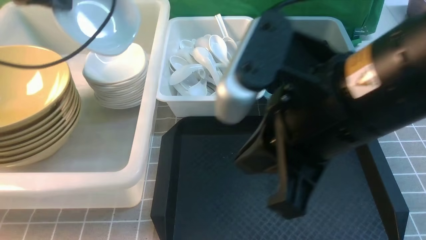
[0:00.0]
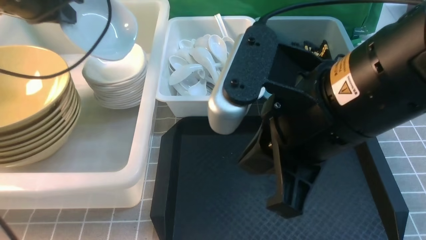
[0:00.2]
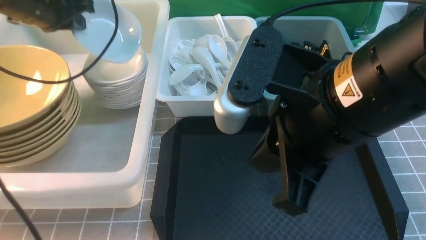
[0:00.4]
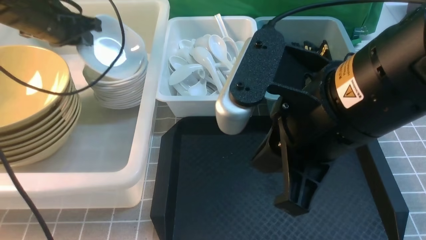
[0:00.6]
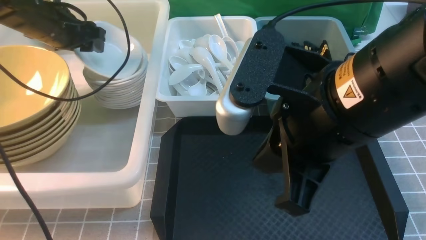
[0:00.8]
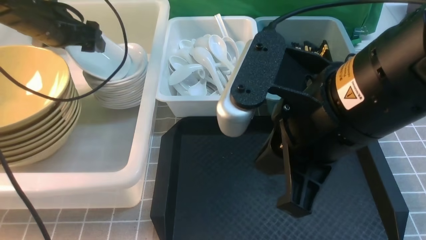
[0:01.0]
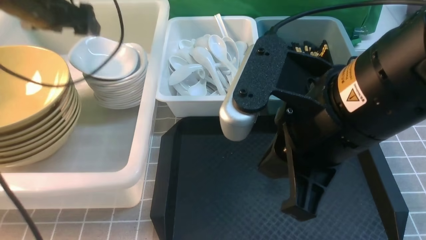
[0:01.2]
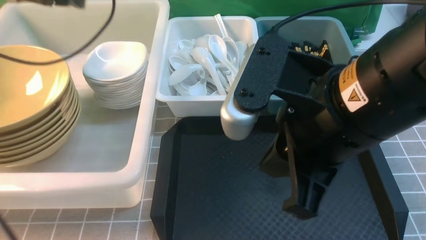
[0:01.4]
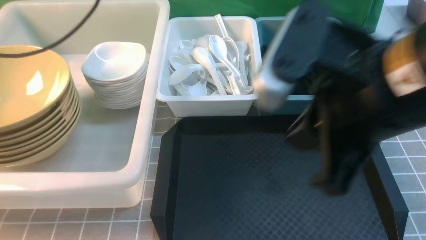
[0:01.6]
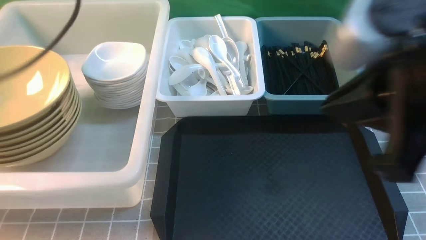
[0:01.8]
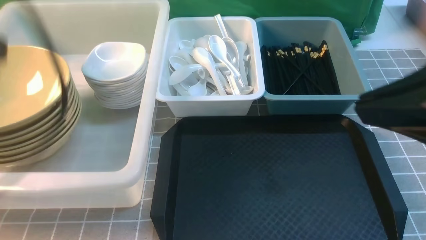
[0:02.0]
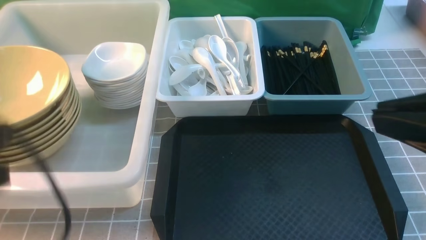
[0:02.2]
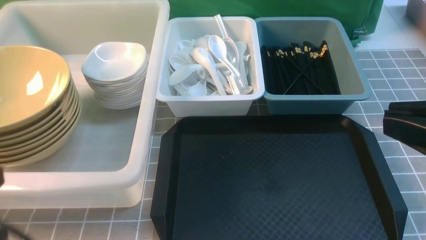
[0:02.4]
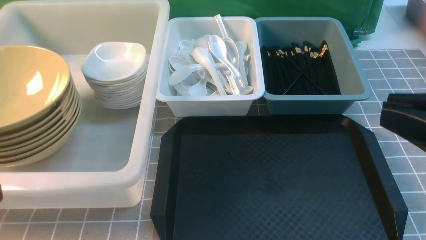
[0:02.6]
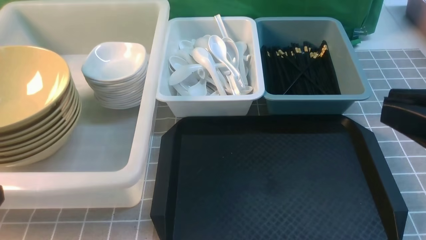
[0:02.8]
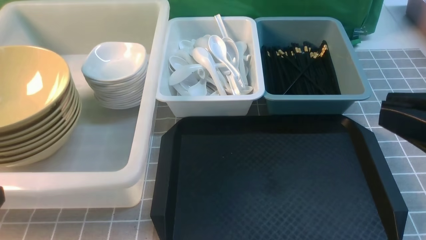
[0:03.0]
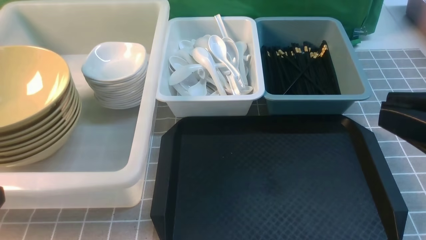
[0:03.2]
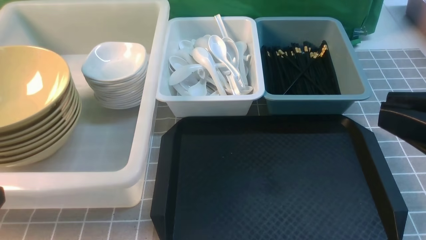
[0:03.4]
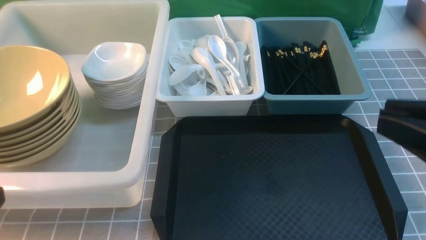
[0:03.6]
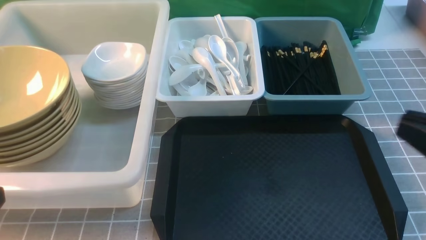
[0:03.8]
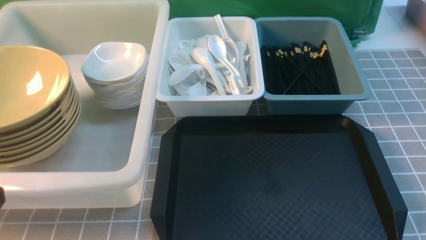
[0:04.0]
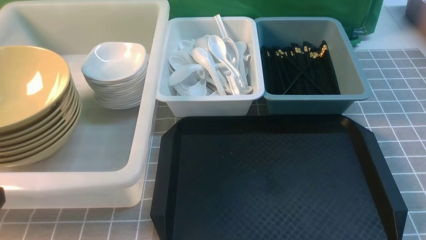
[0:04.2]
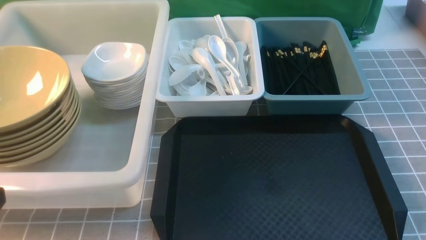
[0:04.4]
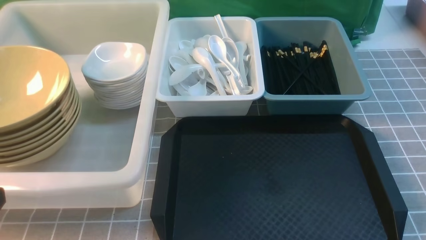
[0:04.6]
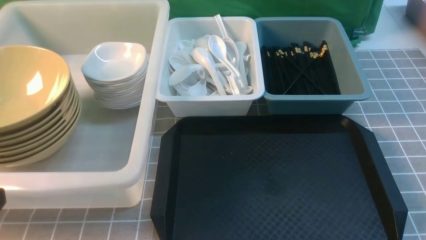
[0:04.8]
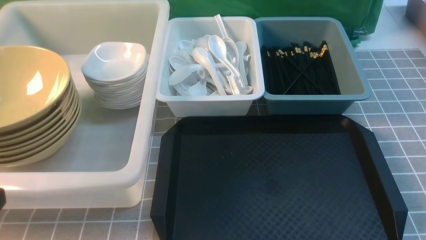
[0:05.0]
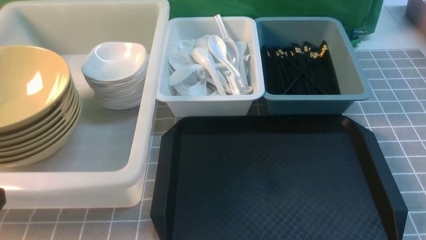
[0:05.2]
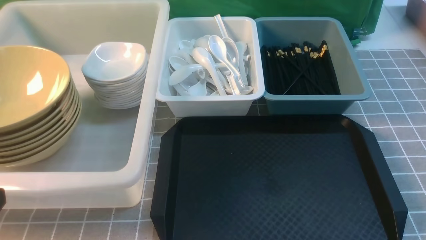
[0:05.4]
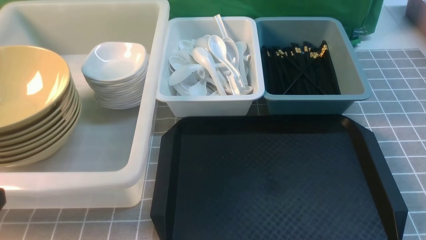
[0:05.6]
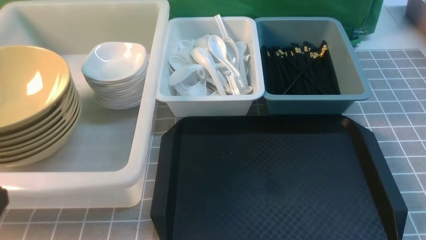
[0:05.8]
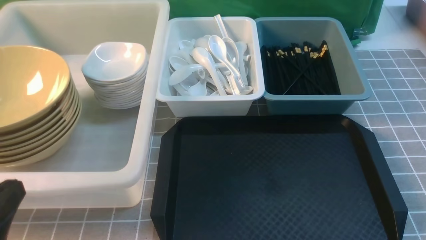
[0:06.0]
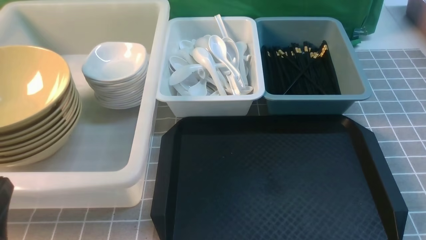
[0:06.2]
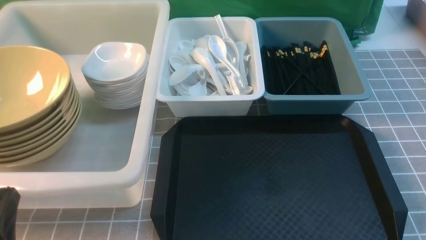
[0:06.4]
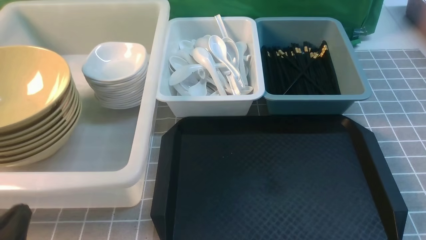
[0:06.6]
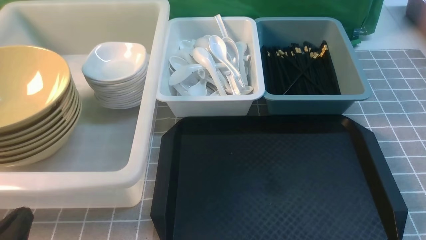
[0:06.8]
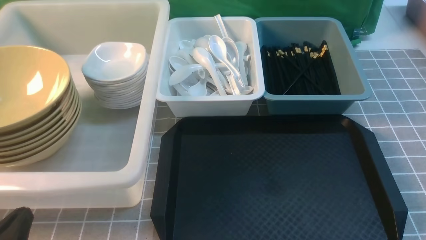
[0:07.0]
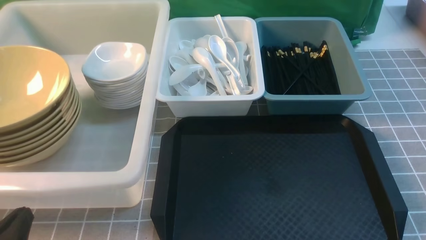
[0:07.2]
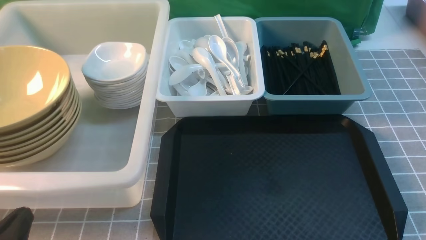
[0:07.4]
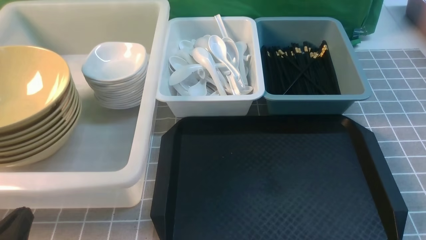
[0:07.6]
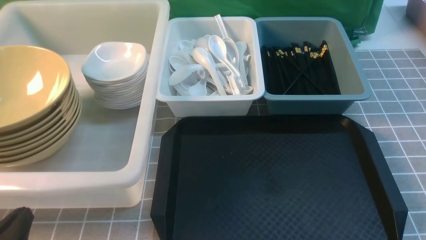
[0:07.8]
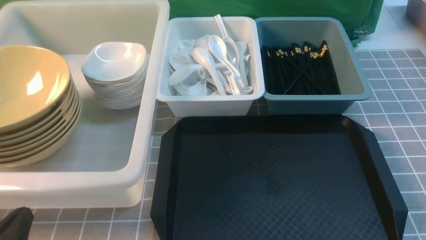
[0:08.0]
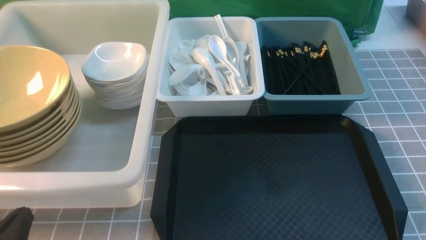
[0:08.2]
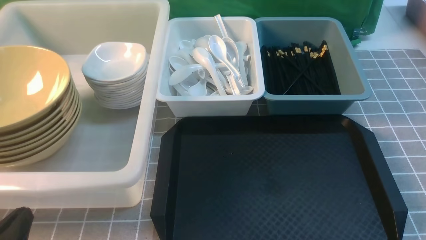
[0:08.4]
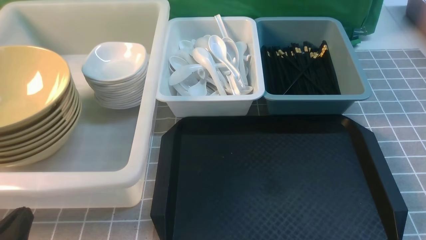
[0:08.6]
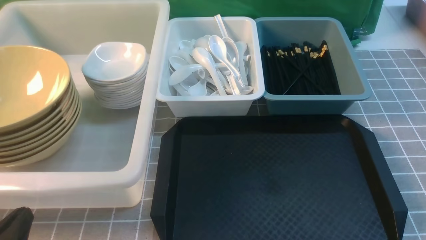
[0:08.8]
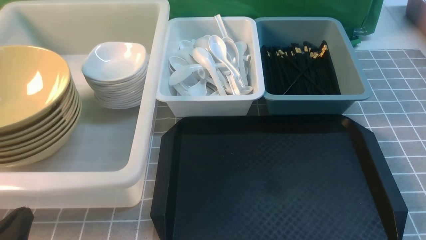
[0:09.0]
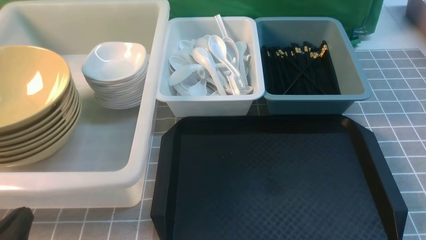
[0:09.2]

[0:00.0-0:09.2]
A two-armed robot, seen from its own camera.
Task of the whole recording: on grey table put chopsticks spoon bowls plates into blue grey white boxes.
Step, 0:00.0 to 0:01.2: use the left arm to put the plate into the large storage box on the left.
0:00.0 to 0:01.6: The left gripper goes approximately 5 cm backward, moves roughly 10 cm downward and comes back, and opens, then closes again.
0:01.6 to 0:03.0: The left gripper moves backward and downward, approximately 30 cm. The right gripper is displaced to the right and backward by some 10 cm.
0:03.0 to 0:04.6: The right gripper shifts roughly 25 cm downward and to the right.
0:06.2 to 0:07.6: The grippers make only small movements.
0:07.6 to 0:09.2: Neither gripper changes place.

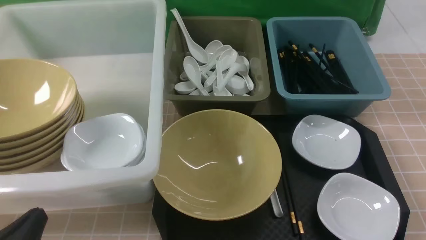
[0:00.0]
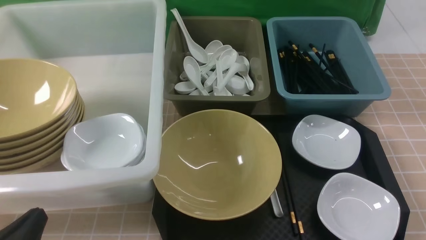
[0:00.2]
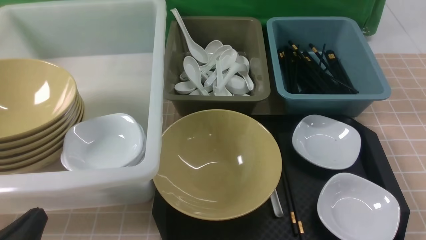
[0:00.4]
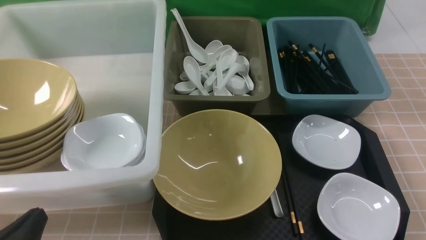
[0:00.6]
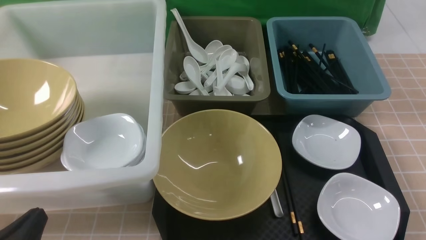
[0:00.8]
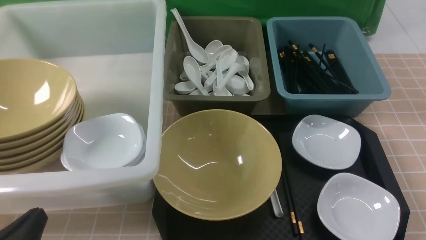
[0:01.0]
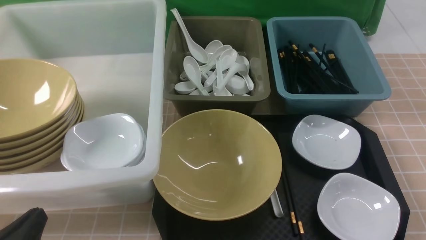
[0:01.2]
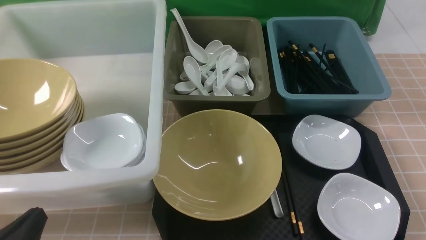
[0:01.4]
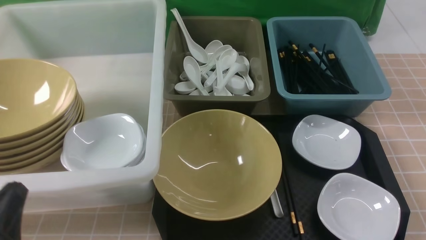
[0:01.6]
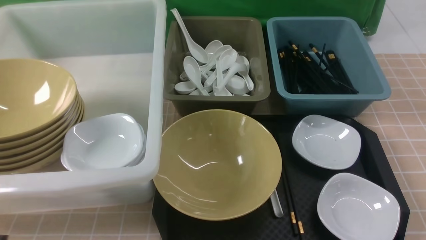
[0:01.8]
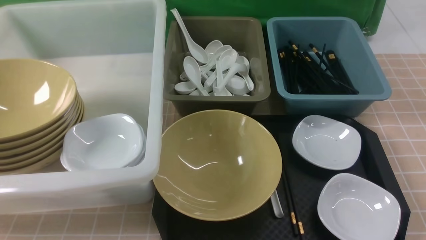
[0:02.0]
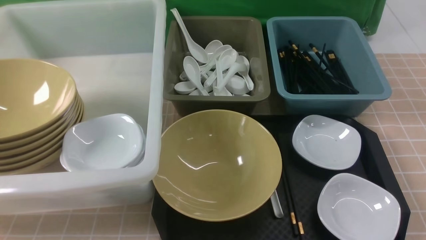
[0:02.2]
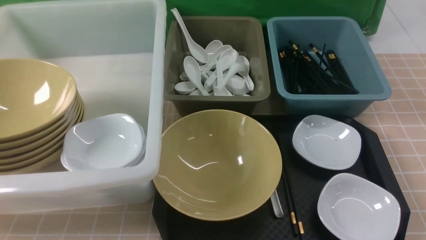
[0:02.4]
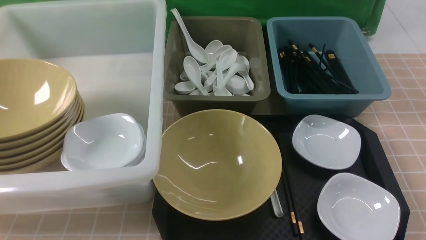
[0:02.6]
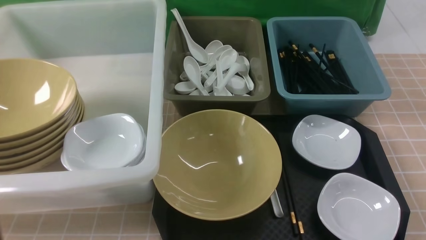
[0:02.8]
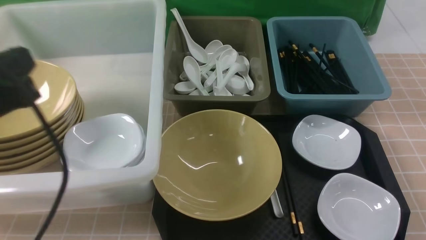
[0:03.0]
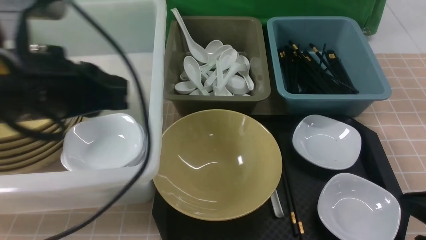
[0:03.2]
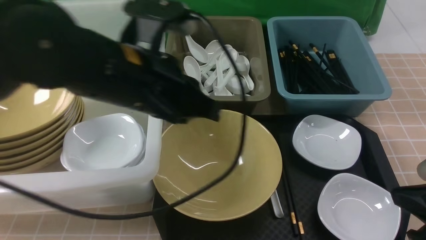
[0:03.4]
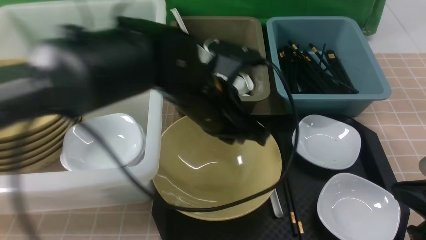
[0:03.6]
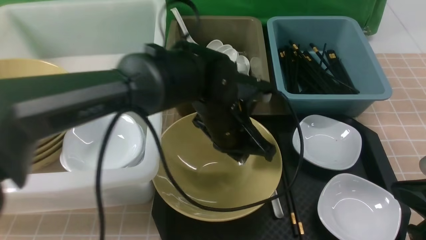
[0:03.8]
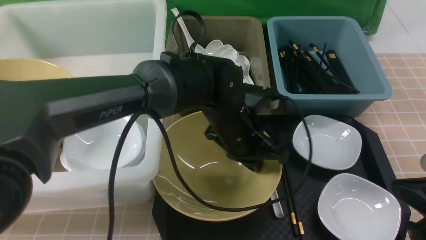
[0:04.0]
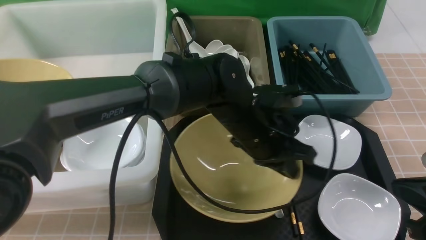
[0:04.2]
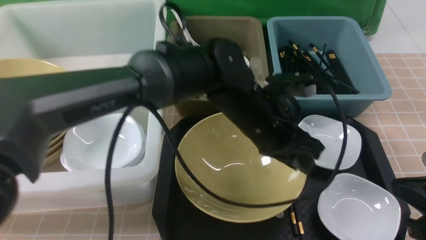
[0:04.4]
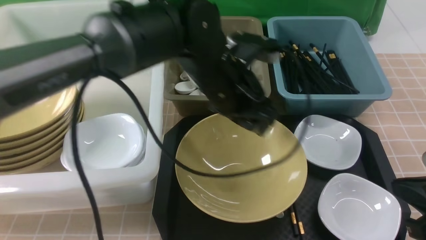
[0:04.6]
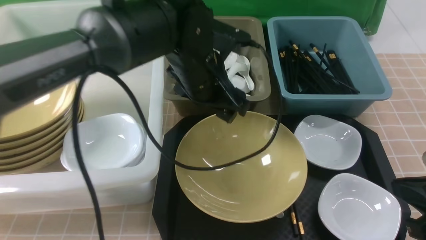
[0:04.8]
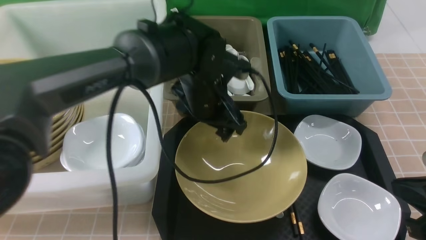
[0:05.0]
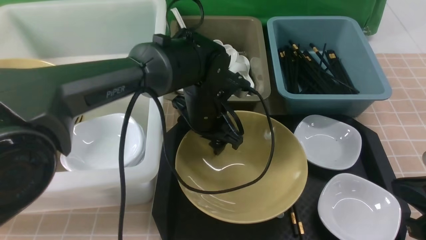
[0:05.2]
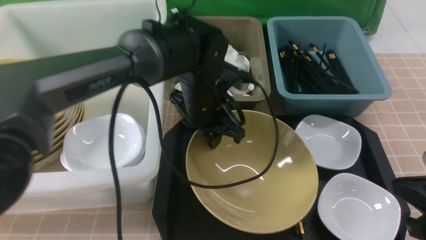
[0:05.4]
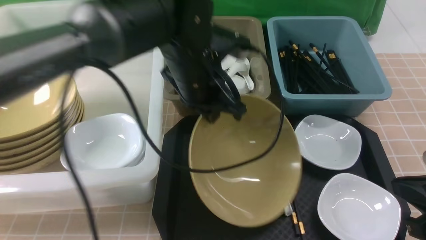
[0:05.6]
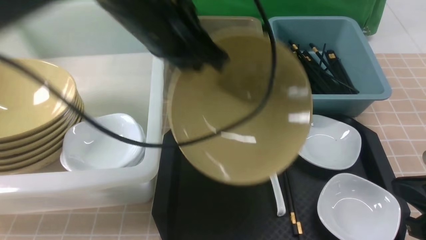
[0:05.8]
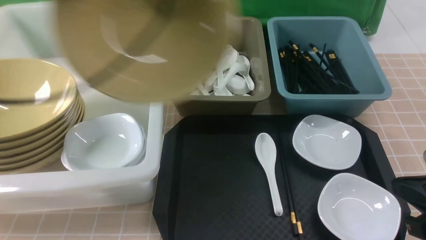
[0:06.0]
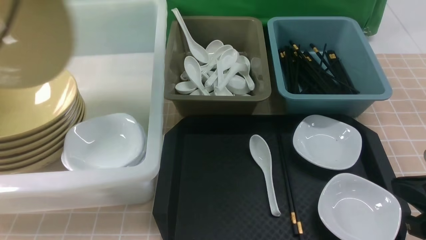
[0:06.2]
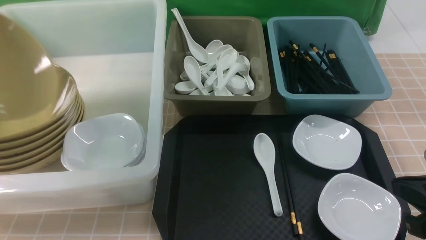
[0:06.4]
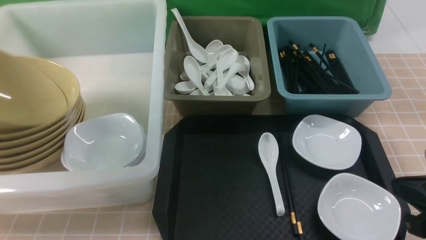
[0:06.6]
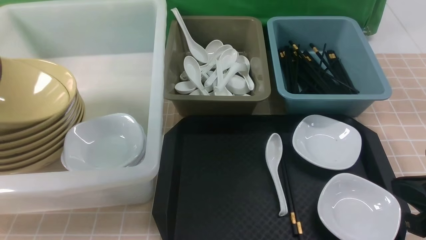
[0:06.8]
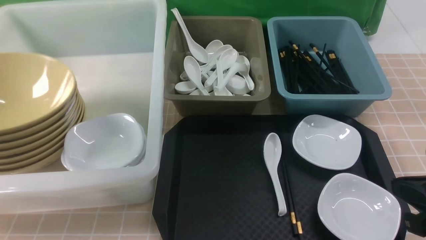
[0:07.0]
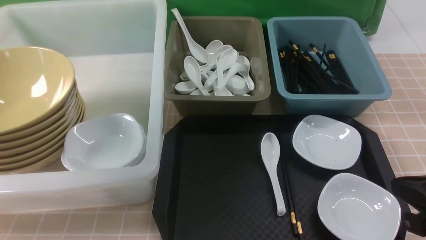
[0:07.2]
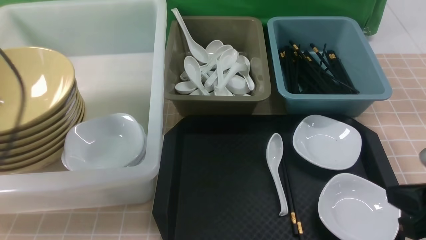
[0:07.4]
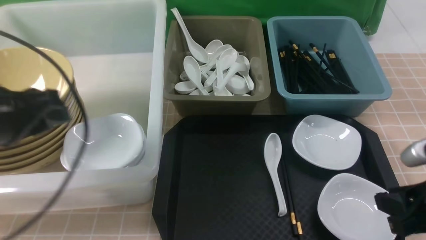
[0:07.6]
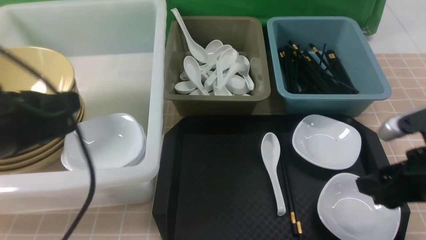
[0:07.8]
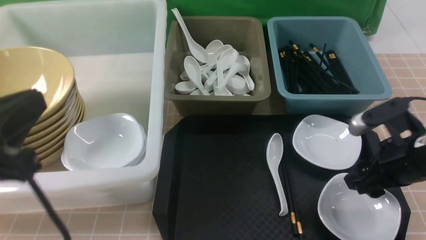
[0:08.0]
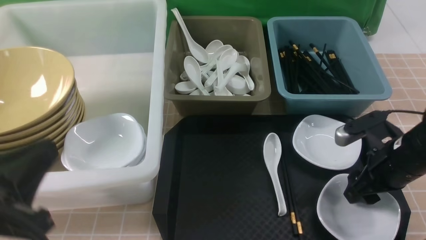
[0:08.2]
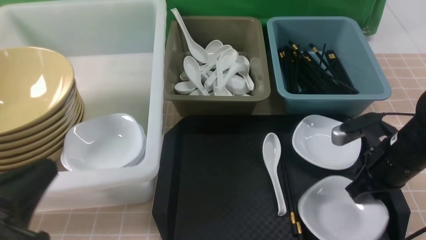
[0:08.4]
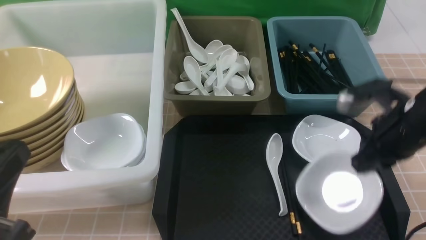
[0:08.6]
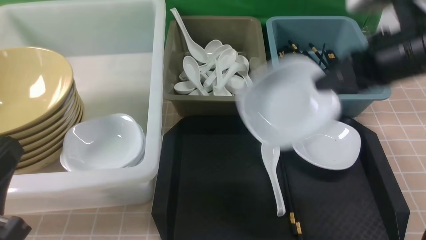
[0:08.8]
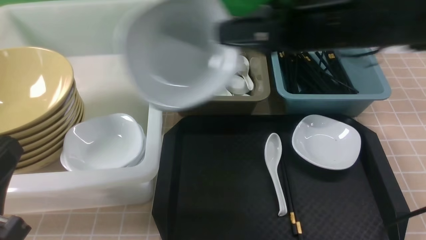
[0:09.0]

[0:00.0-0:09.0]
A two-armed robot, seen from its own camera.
Task of the whole recording: on brown table put chopsticks spoon bowls plates into blue grey white boxes.
Step, 0:00.0 to 0:05.6: use the left arm to grab the yellow noodle bowl on the left.
Step, 0:06.0 to 0:07.2: use the left arm to put the noodle bowl into the large storage box on the left.
Step, 0:07.4 to 0:08.6: use the right arm to grab the plate.
0:01.6 to 0:03.0: The left gripper goes approximately 20 cm upward and forward.
0:03.0 to 0:04.4: The left gripper is displaced to the right, forward and downward by about 30 cm, and opens.
0:04.4 to 0:06.0: The left gripper moves to the left and upward, approximately 30 cm, and closes.
0:06.0 to 0:07.6: The left gripper travels downward and backward by roughly 15 cm, goes to the left and returns, about 15 cm each way, and opens, then closes once more. The right gripper opens its fingers.
0:07.6 to 0:09.0: The left gripper is displaced backward by roughly 15 cm, and closes. The right gripper heads to the left, forward and upward, covering about 25 cm, and closes up.
